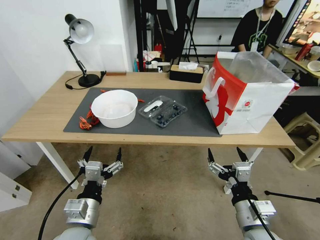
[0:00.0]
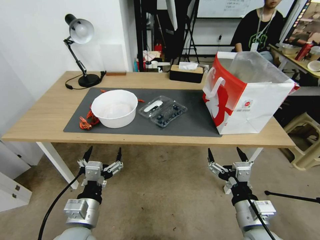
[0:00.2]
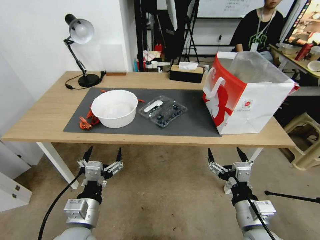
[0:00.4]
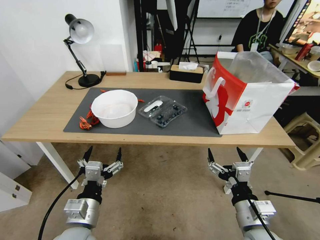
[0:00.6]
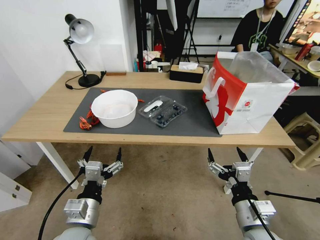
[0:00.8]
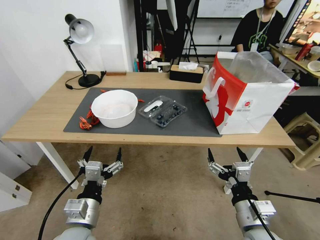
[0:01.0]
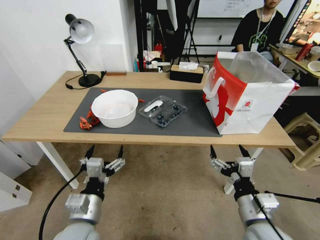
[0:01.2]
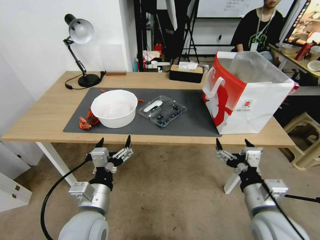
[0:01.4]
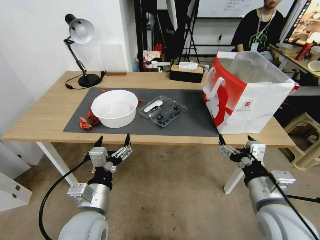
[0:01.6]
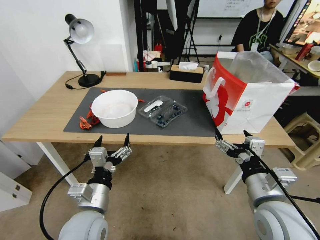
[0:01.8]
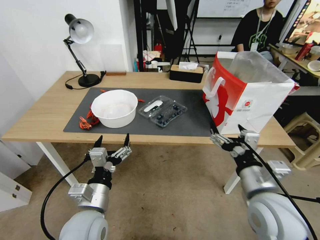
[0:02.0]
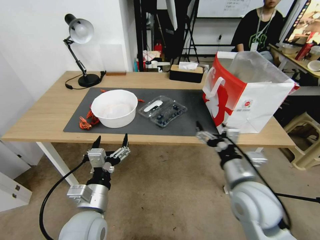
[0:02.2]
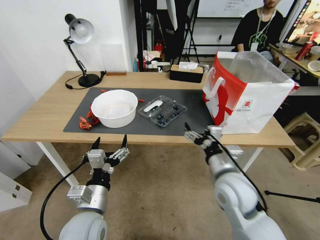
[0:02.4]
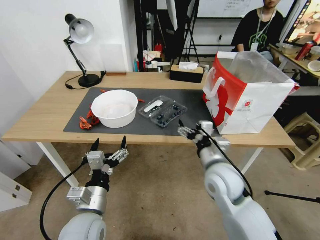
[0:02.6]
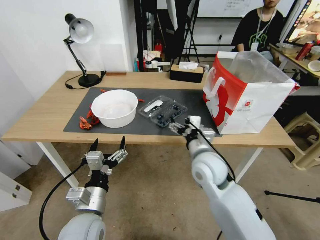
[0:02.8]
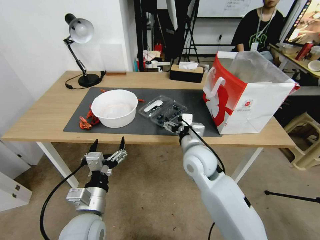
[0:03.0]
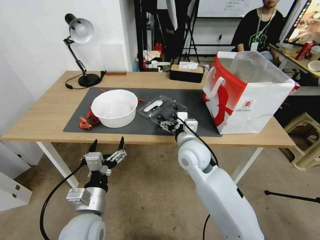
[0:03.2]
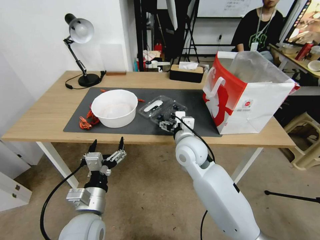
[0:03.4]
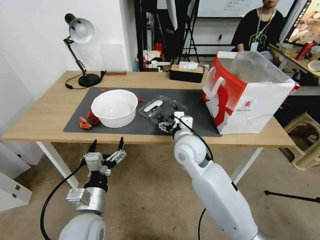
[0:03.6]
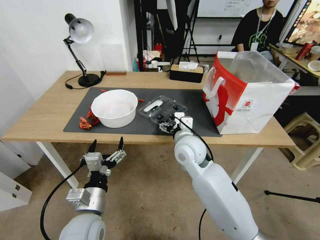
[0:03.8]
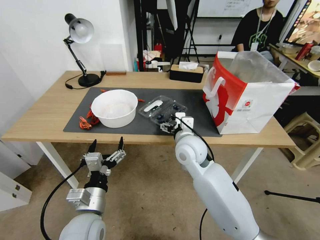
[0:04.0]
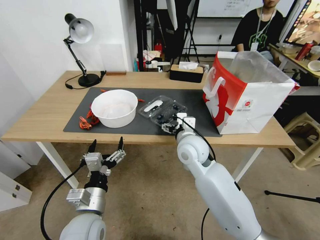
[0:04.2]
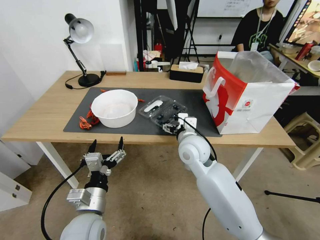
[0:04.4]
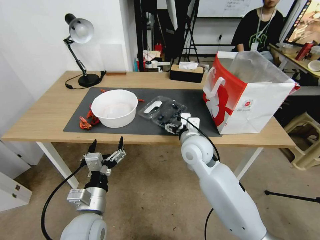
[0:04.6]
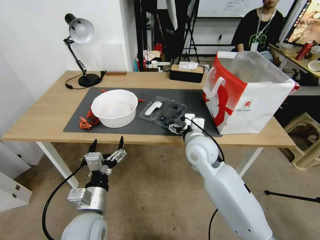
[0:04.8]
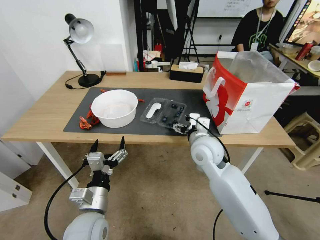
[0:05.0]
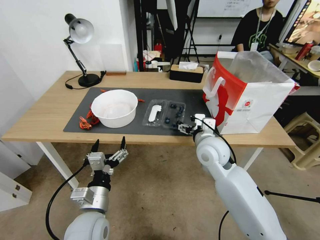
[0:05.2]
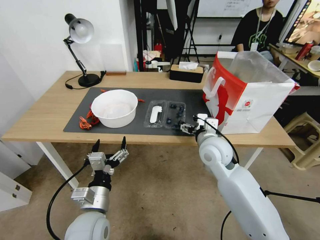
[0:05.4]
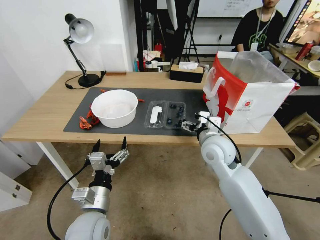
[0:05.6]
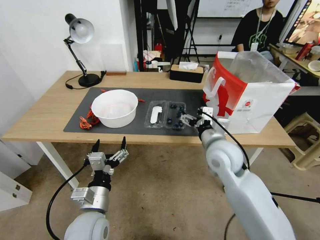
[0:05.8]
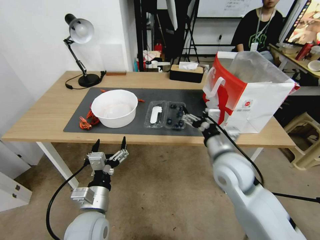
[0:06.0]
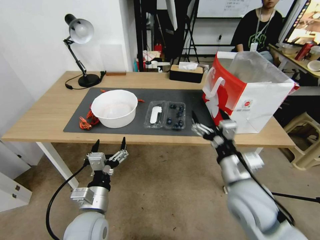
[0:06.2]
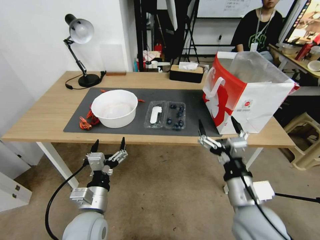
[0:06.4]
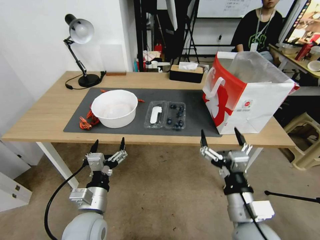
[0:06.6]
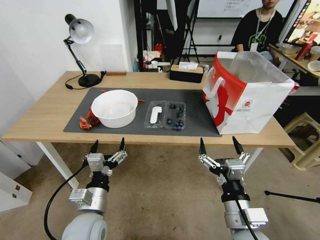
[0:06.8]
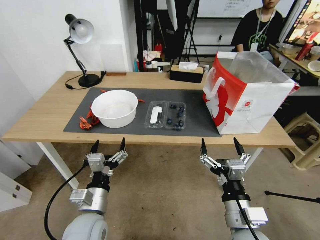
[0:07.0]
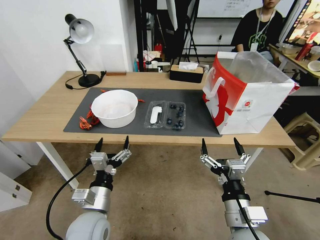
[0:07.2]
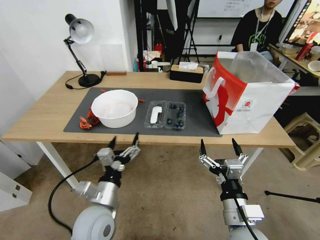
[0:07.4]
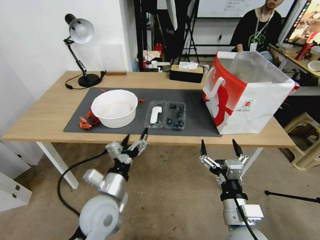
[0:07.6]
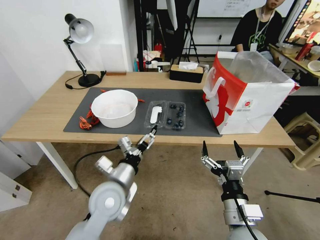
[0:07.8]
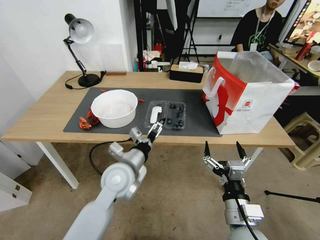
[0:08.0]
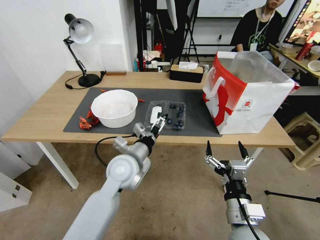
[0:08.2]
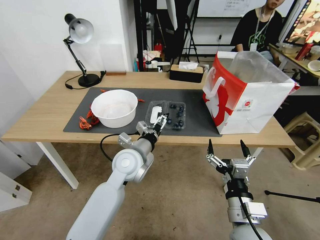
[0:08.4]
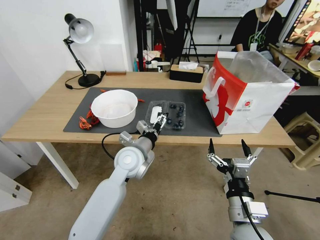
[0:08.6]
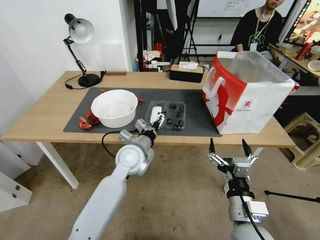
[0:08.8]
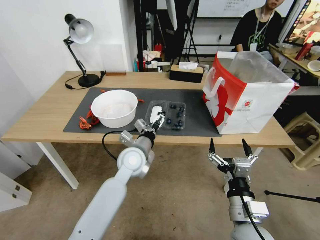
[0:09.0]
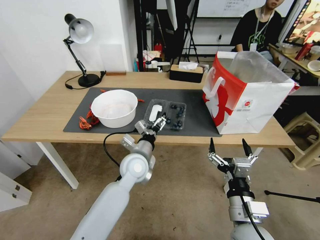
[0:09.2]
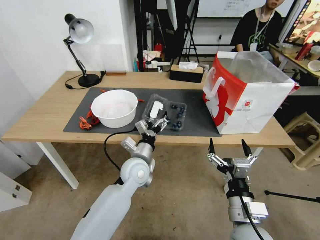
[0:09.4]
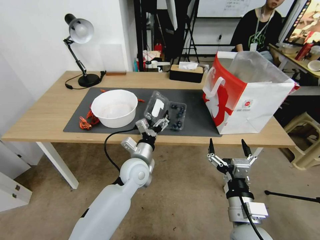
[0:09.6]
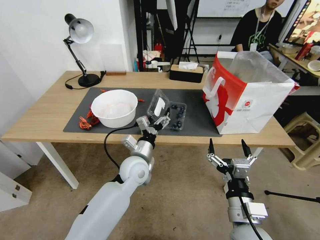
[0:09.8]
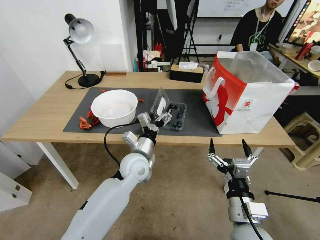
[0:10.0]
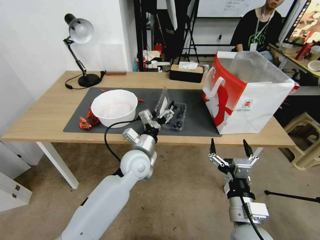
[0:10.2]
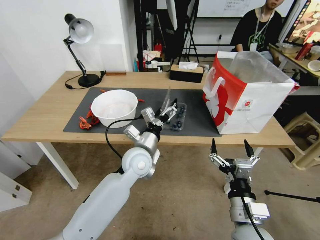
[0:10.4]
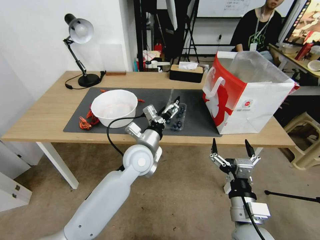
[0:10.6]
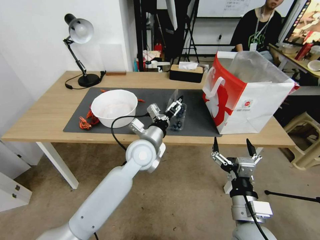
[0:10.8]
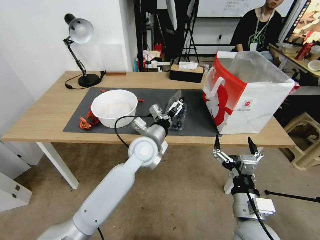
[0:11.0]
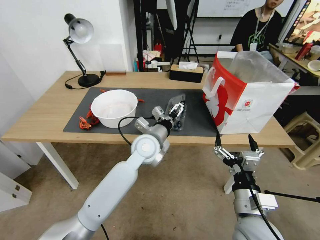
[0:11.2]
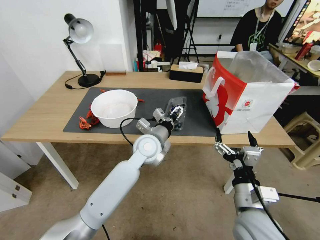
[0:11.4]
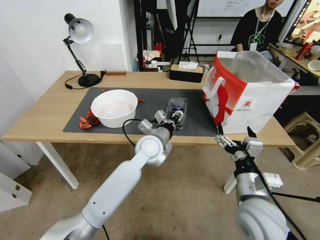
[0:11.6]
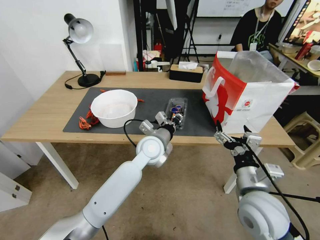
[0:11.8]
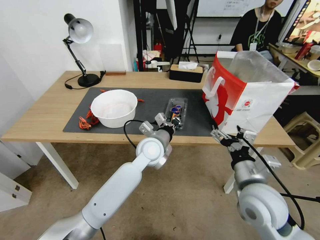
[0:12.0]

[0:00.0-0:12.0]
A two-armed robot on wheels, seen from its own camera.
Task of the whole recording: Close the takeout container lid, then place the container into the takeout bag.
1.6 to 3.0 s: The right gripper shifts roughly 20 cm forward and to the left.
3.0 to 4.4 s: There are only small adjustments of the grippers.
4.4 to 6.0 s: The right gripper heads to the right and backward, covering about 10 cm.
6.0 to 7.6 s: The right gripper moves backward and downward, about 20 cm.
7.6 to 9.0 s: The left gripper moves forward and to the right, roughly 15 cm.
10.4 to 12.0 s: The left gripper shifts by approximately 5 cm, and closes its fingers; the right gripper goes roughly 10 cm forward and upward.

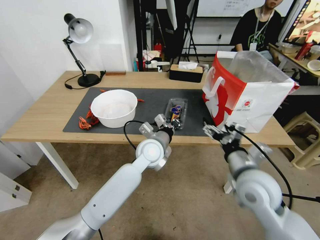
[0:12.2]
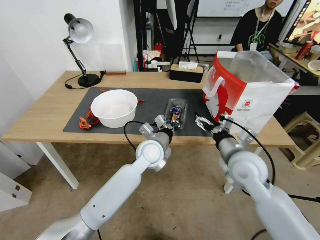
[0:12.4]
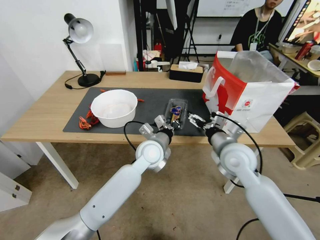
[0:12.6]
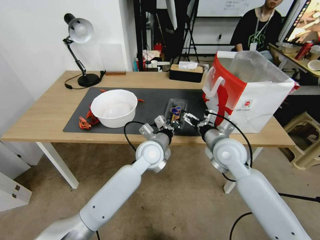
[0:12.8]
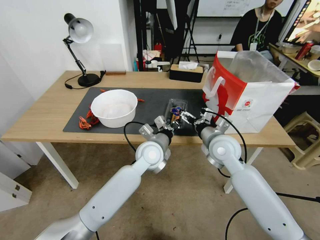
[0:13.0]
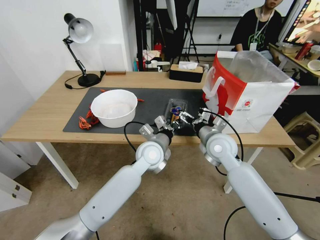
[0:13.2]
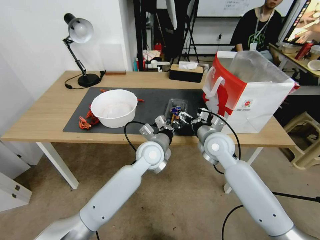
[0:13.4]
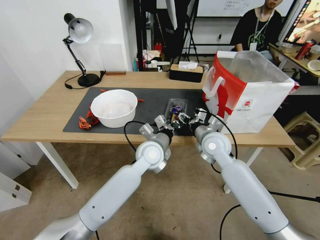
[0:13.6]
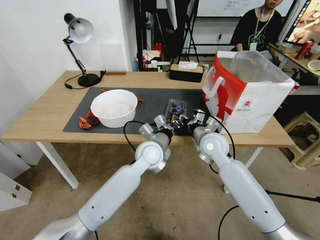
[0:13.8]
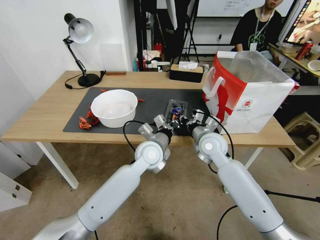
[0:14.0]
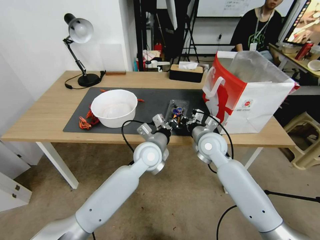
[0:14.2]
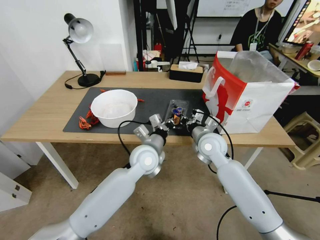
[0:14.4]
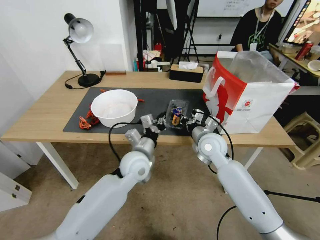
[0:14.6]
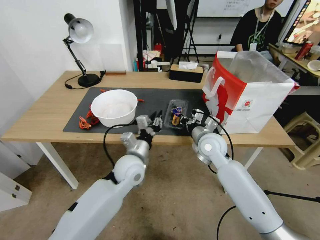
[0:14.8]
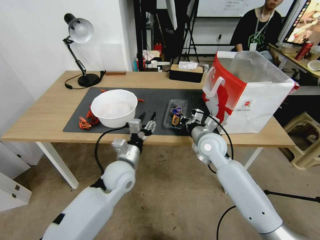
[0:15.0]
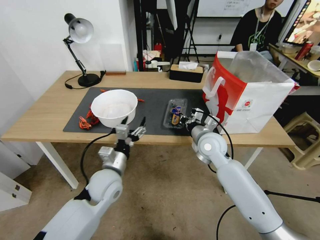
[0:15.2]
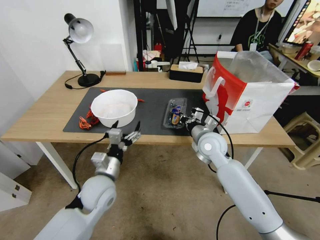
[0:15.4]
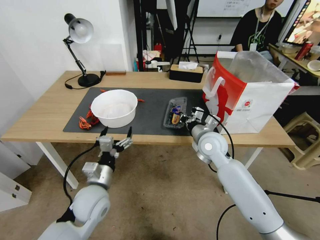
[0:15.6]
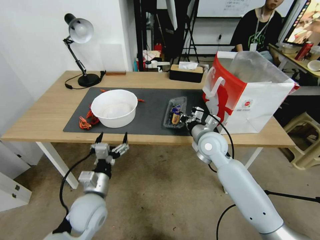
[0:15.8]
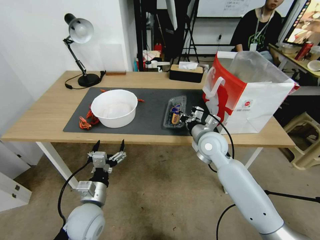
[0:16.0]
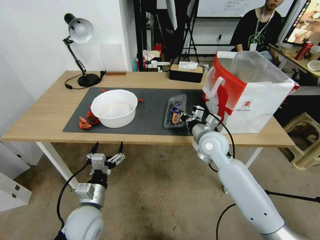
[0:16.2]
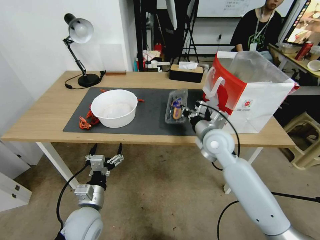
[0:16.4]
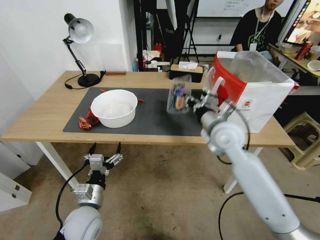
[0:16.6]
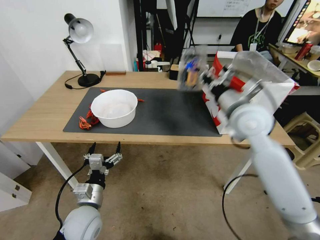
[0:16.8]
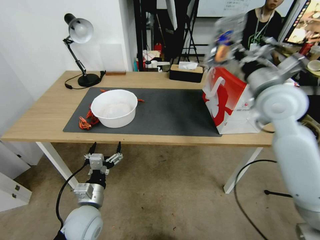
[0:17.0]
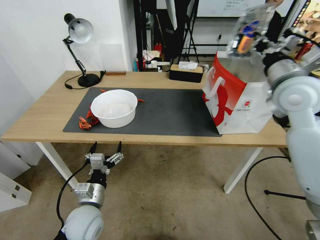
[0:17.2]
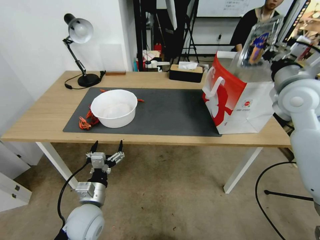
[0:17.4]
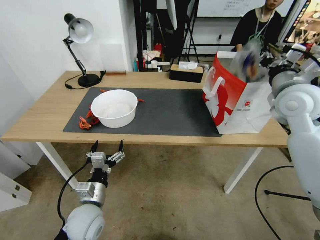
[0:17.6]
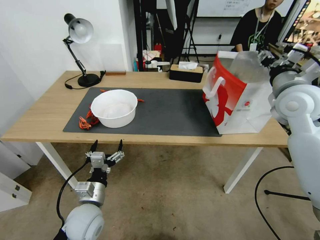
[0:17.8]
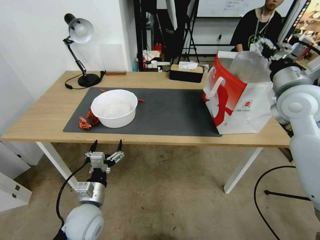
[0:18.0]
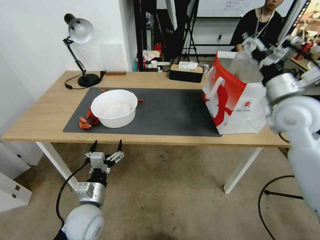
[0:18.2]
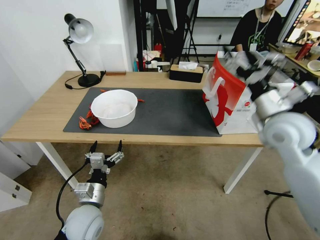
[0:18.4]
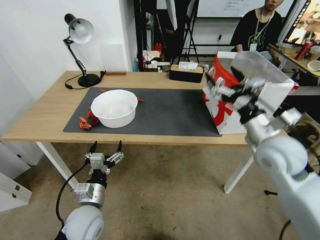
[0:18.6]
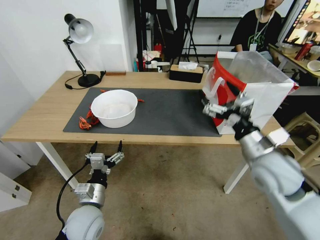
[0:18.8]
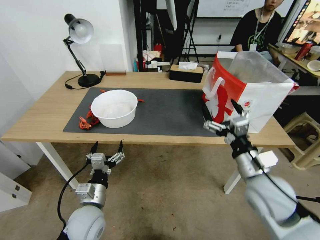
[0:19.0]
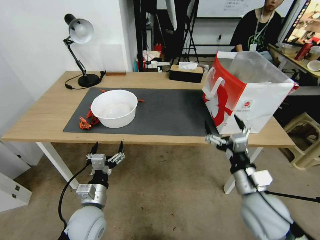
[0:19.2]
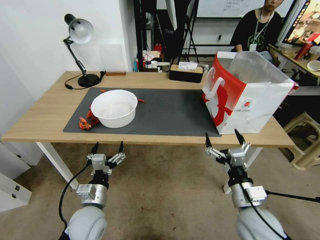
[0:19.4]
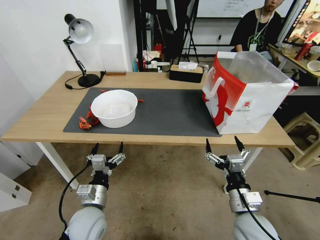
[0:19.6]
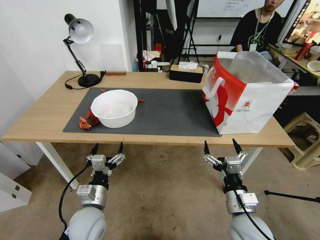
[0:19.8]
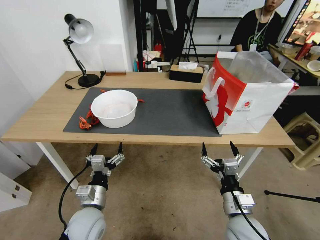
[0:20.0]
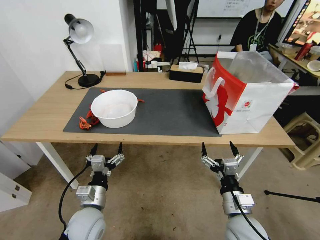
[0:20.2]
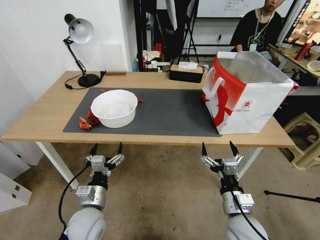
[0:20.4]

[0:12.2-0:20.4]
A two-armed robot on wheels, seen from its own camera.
Task of the whole recording: Close the takeout container lid, then place the container into the takeout bag.
12.2 to 13.8 s: The right gripper shifts about 15 cm forward, and closes up.
13.8 to 15.4 s: The right gripper closes; the left gripper shifts some 20 cm to the left and backward, and opens up.
15.4 to 17.2 s: The left gripper heads backward, covering roughly 5 cm. The right gripper is displaced upward and to the right by some 25 cm.
17.2 to 18.8 s: The right gripper travels downward and backward by roughly 20 cm, and opens its fingers.
18.8 to 20.4 s: The right gripper moves downward and backward, about 20 cm.

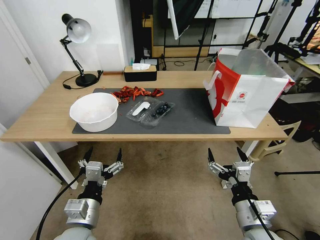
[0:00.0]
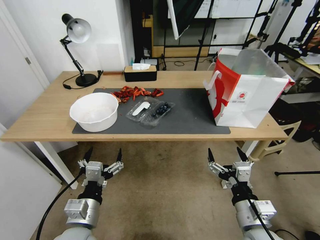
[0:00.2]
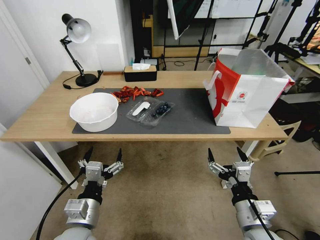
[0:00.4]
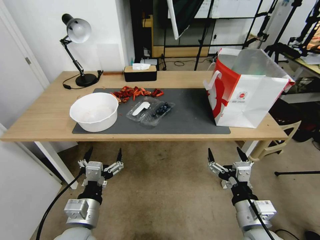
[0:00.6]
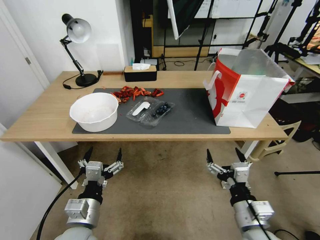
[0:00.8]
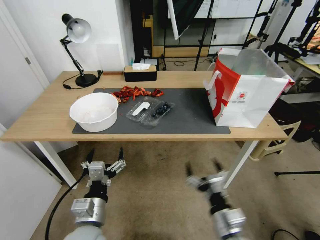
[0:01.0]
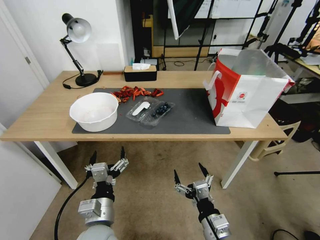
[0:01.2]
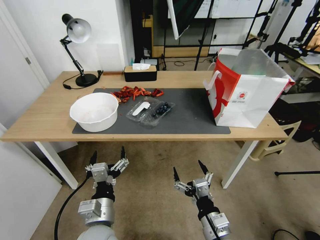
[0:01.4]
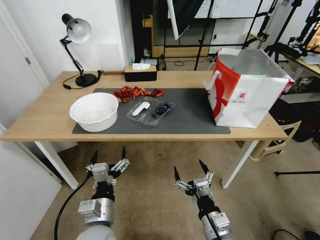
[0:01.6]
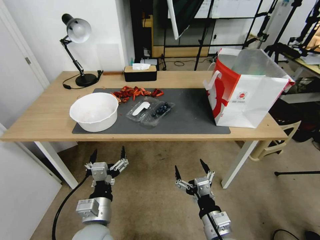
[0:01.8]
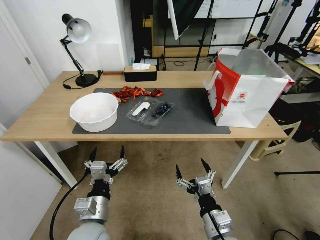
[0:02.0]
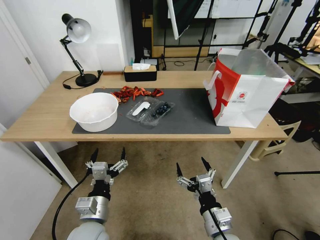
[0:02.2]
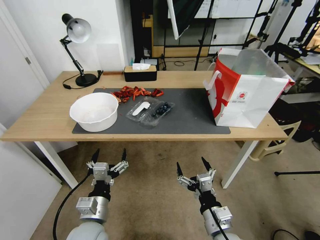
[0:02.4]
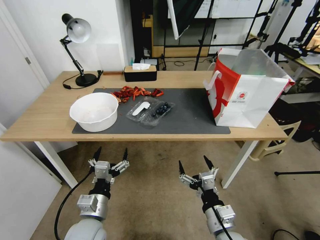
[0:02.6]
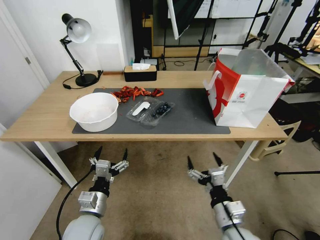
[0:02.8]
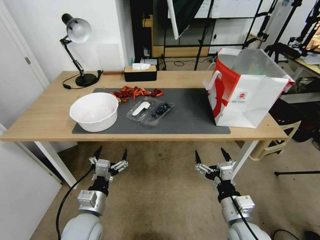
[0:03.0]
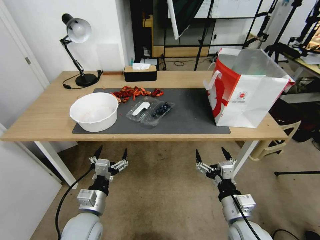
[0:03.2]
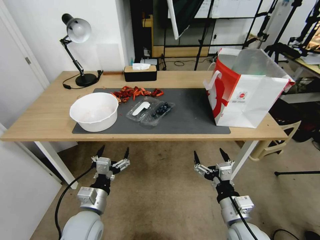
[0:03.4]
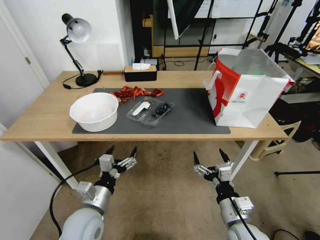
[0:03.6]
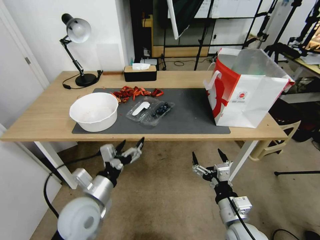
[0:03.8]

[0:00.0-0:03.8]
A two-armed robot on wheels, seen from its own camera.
Task of the whole recording: Close the takeout container lid, then place the container into the takeout bag.
1.2 to 2.6 s: The grippers make only small movements.
2.6 to 3.8 s: The left gripper moves upward, about 5 cm.
